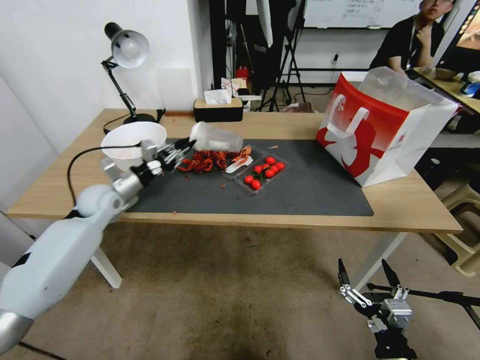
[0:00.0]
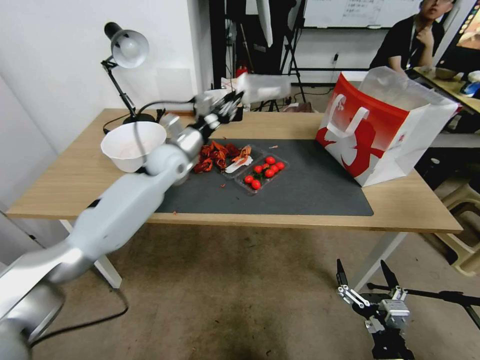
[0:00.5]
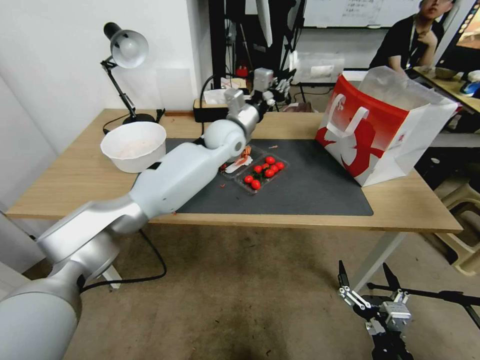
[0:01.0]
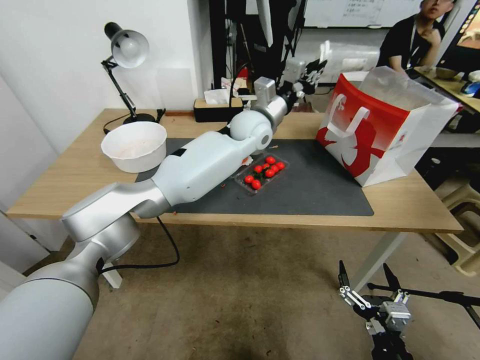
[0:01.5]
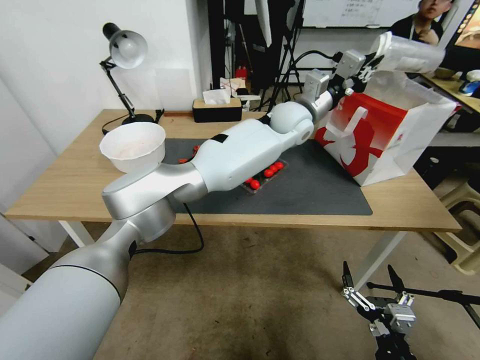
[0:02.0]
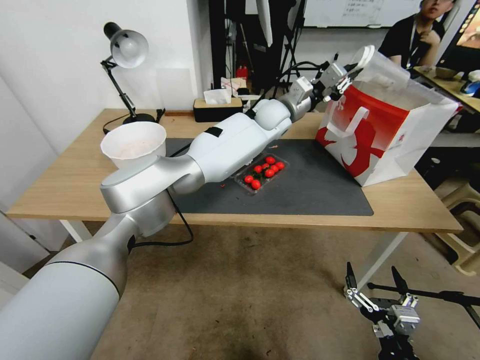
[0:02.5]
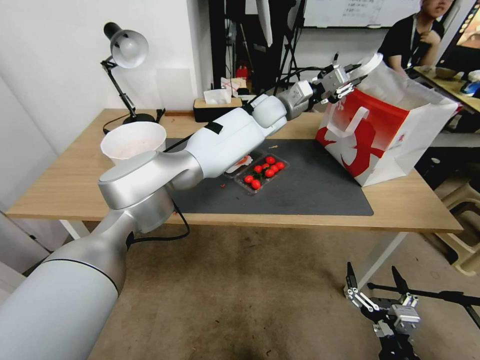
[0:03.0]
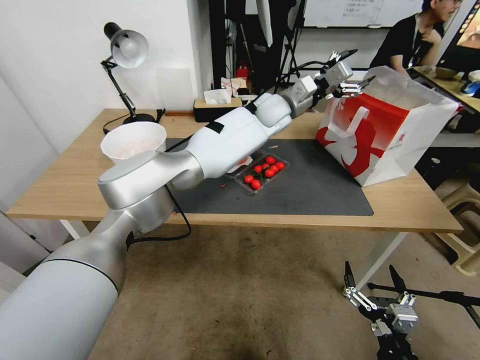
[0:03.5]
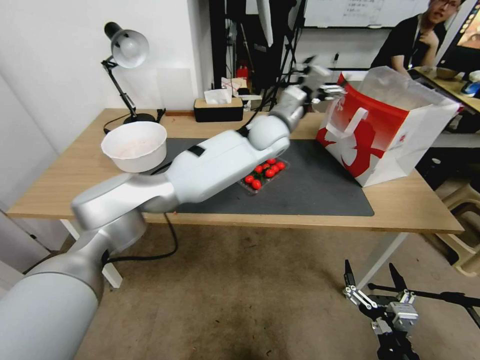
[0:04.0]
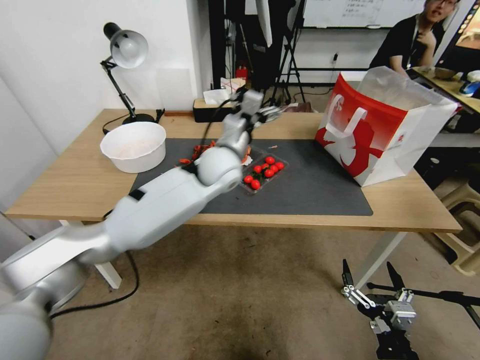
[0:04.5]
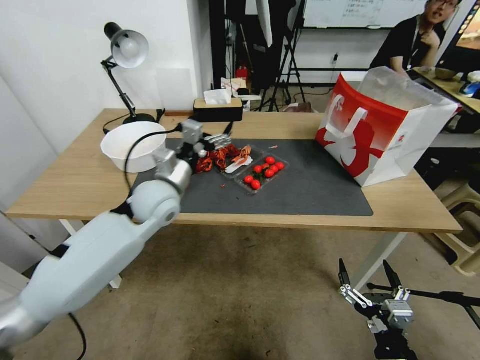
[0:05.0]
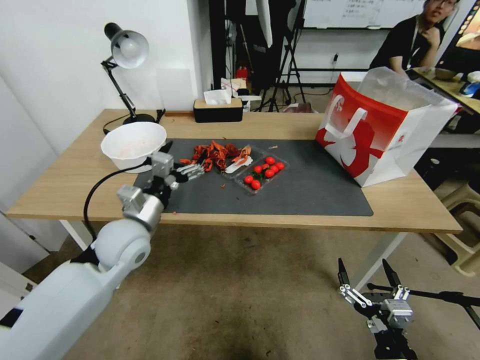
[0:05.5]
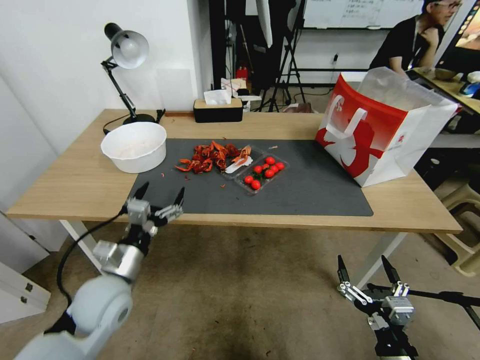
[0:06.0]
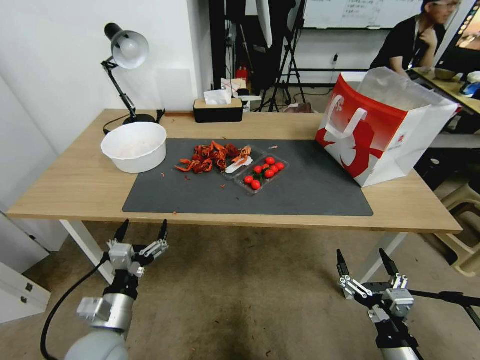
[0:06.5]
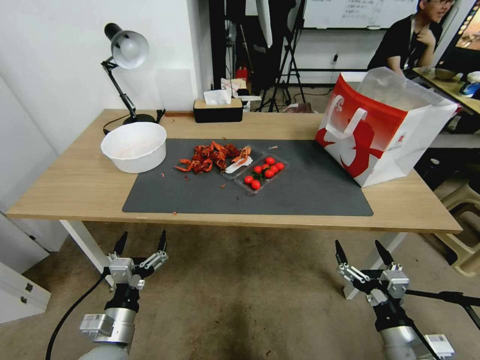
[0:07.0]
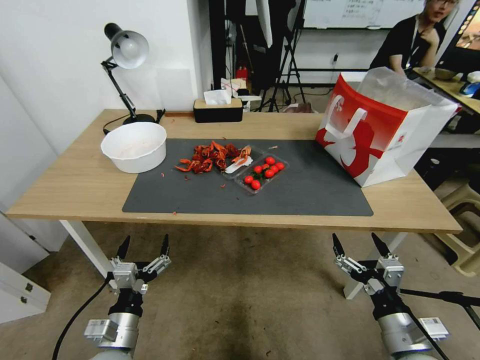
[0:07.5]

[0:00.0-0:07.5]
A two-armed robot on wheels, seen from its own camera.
0:00.0 to 0:02.0: The left gripper goes approximately 50 cm to the right and upward.
0:02.0 to 0:04.0: The left gripper heads to the right, covering roughly 5 cm, and opens.
0:04.0 to 0:05.5: The left gripper moves to the left and backward, roughly 40 cm.
0:05.5 to 0:07.5: The left gripper heads backward and downward, covering roughly 25 cm. Meanwhile the right gripper is displaced forward by roughly 5 cm.

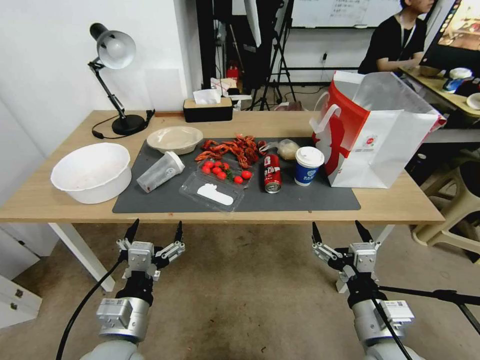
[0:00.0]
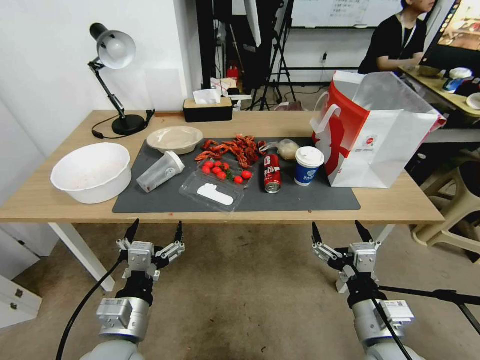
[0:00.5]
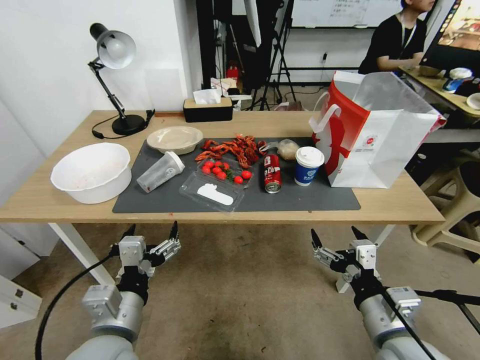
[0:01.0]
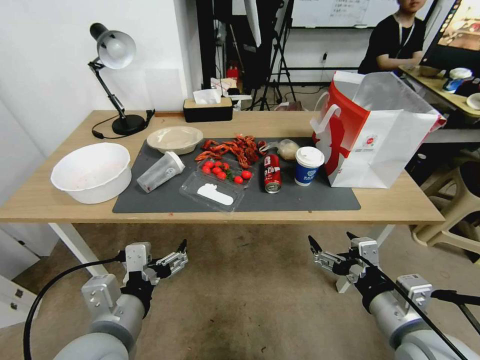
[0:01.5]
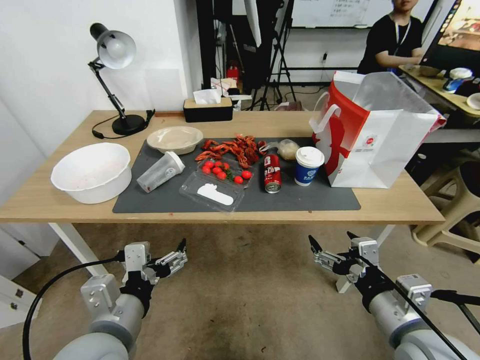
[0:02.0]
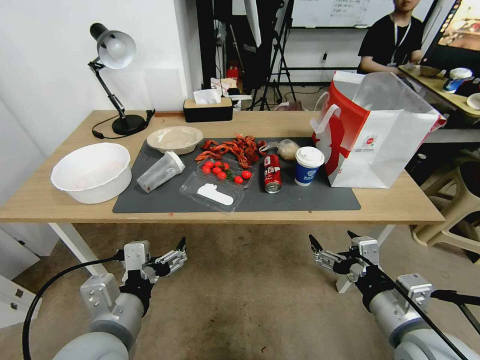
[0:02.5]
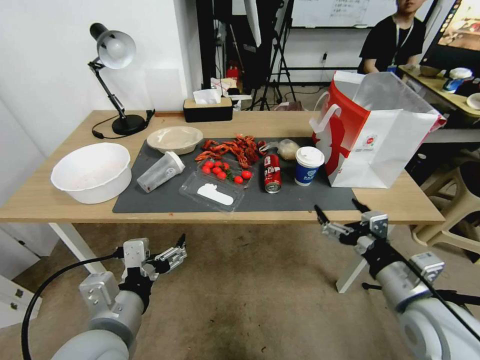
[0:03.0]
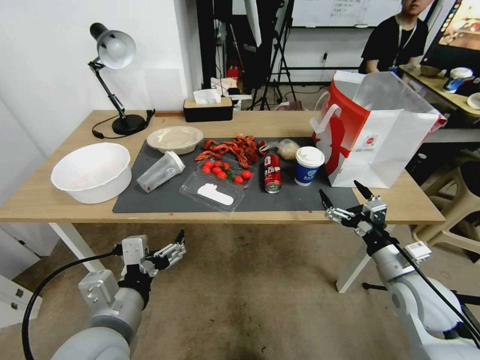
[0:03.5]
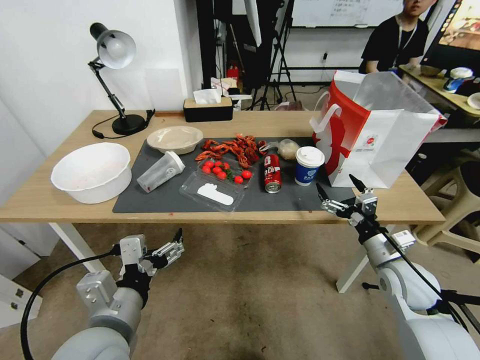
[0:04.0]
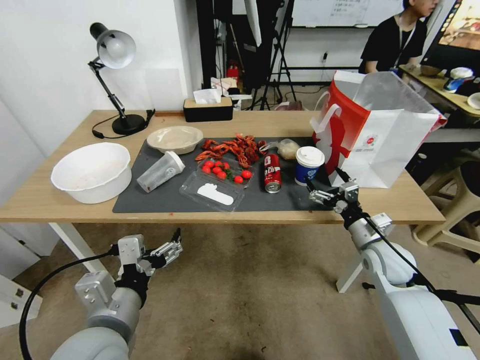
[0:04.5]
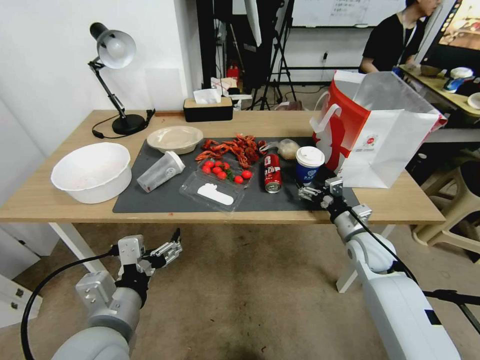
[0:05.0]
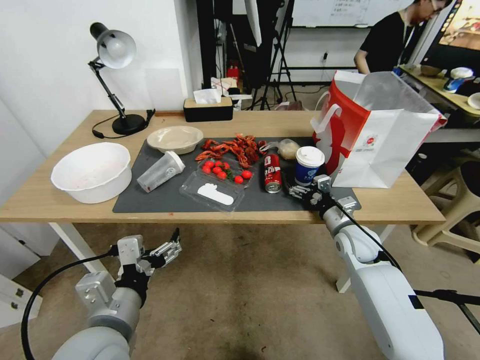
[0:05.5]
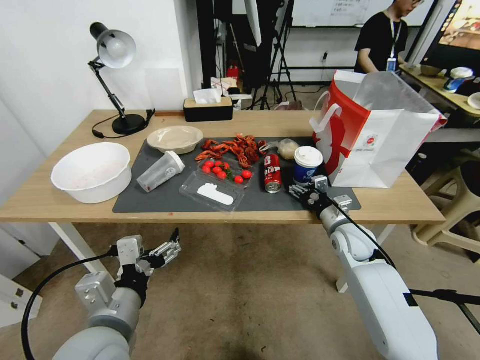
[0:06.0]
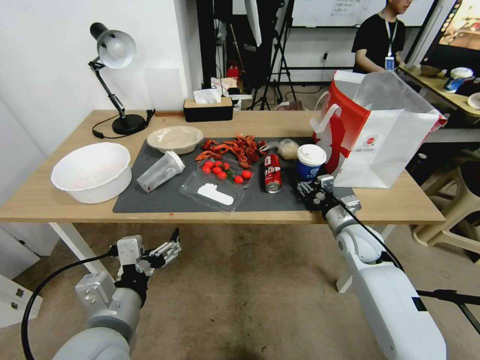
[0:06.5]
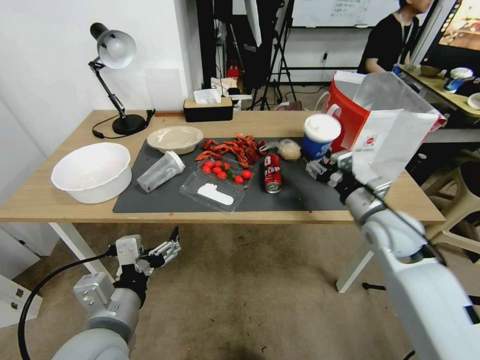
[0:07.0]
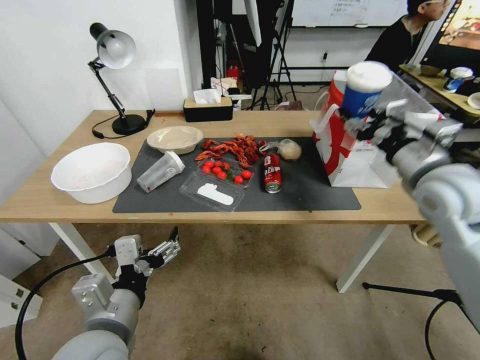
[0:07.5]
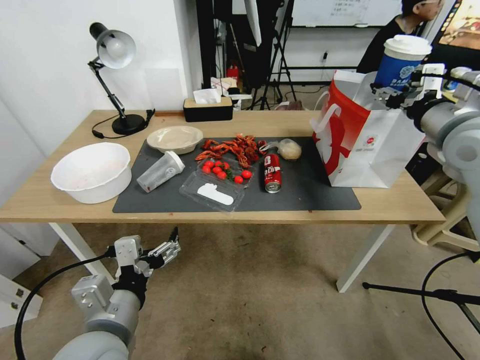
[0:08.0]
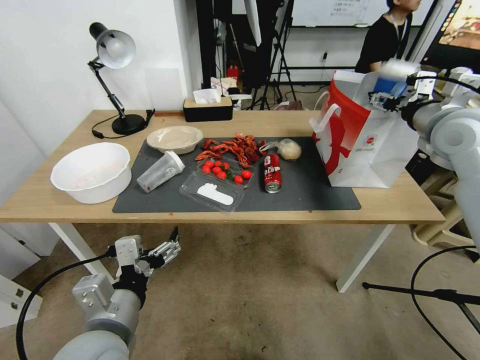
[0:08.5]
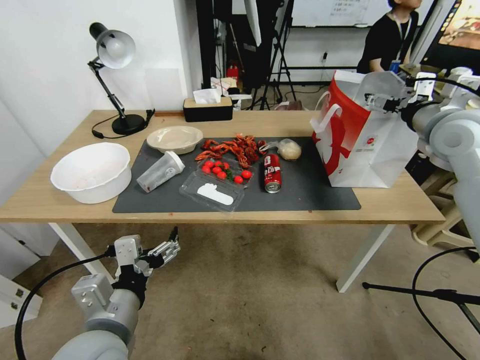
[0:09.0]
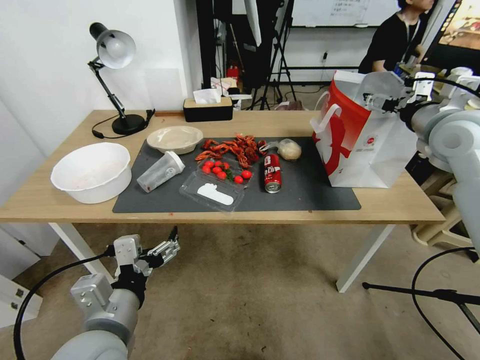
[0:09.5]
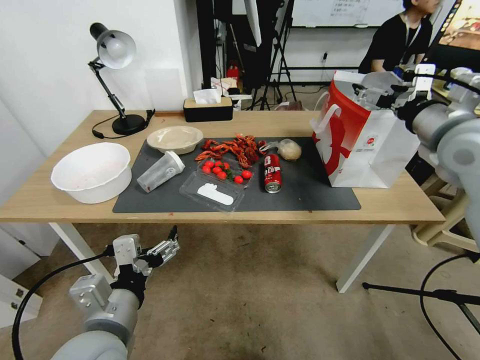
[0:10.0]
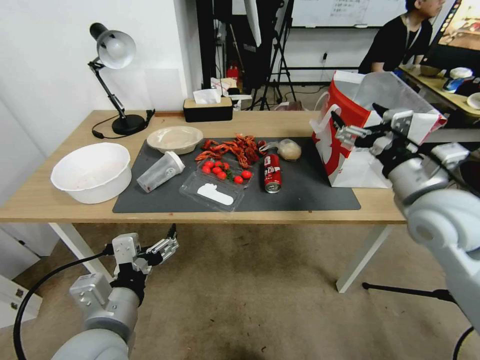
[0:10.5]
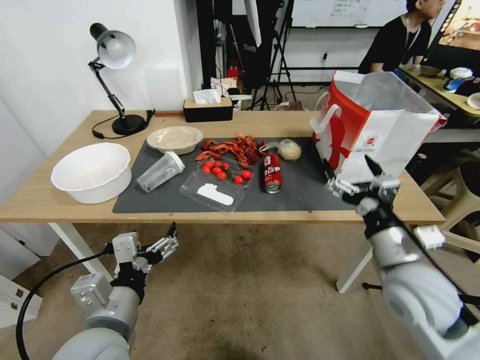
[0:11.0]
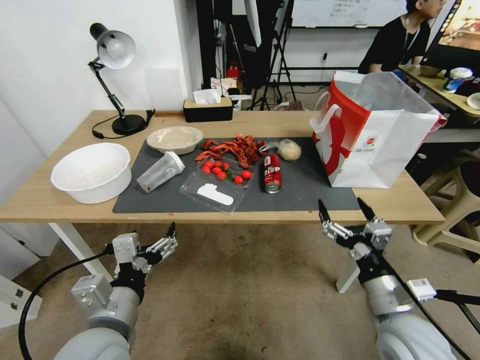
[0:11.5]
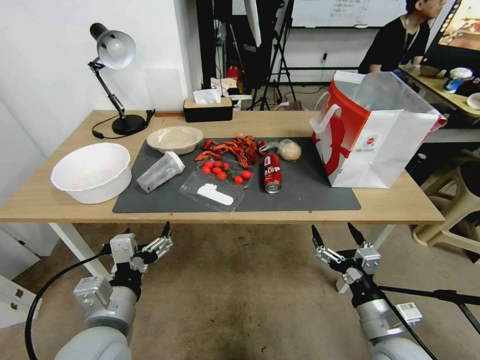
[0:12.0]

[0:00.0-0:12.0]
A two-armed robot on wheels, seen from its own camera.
0:02.0 to 0:04.0: The right gripper is displaced forward, downward and to the right by about 20 cm.
0:04.0 to 0:06.0: The right gripper travels forward and to the left by approximately 15 cm.
0:06.0 to 0:08.0: The right gripper travels upward by some 30 cm, and closes its fingers.
0:08.0 to 0:10.0: The right gripper opens its fingers.
0:10.0 to 0:12.0: The right gripper moves downward and backward, approximately 40 cm.

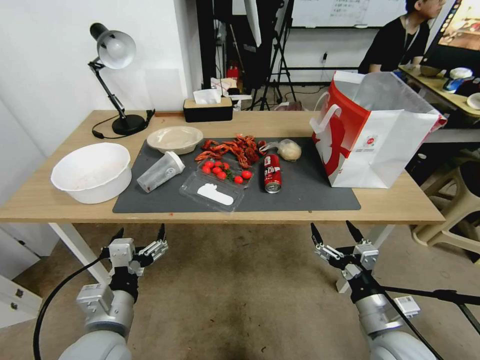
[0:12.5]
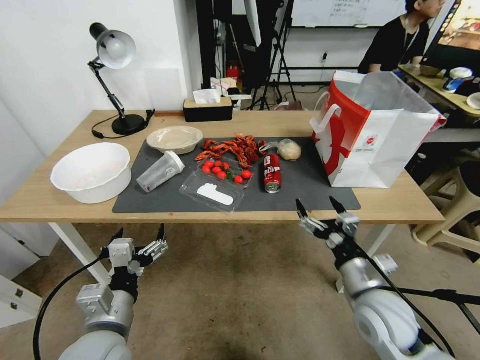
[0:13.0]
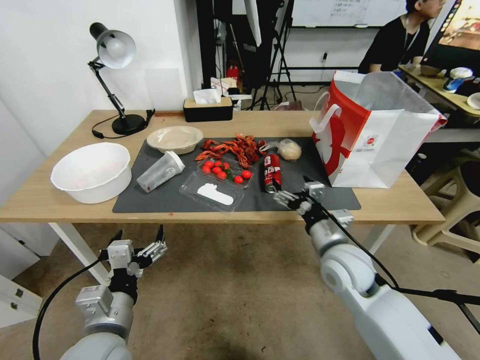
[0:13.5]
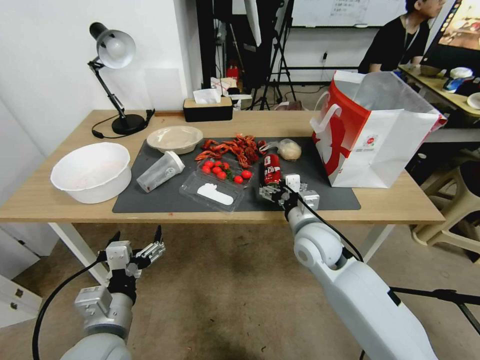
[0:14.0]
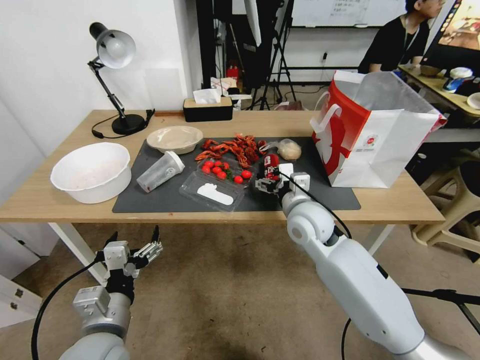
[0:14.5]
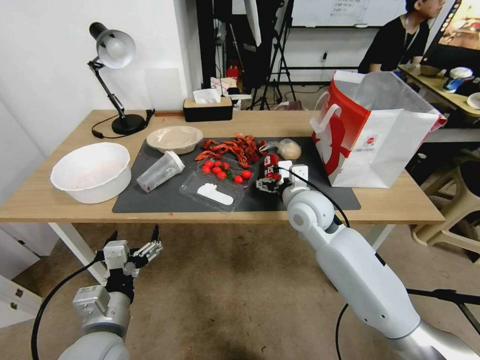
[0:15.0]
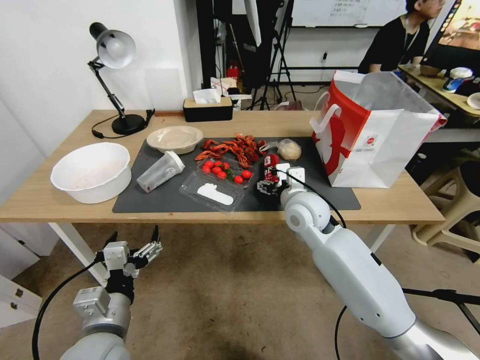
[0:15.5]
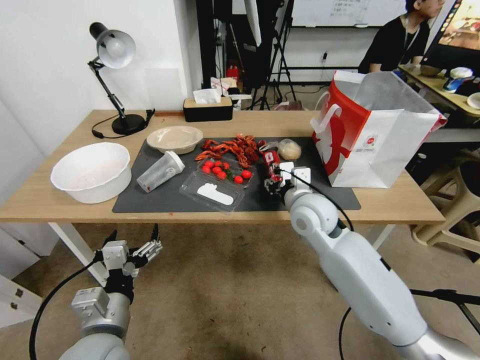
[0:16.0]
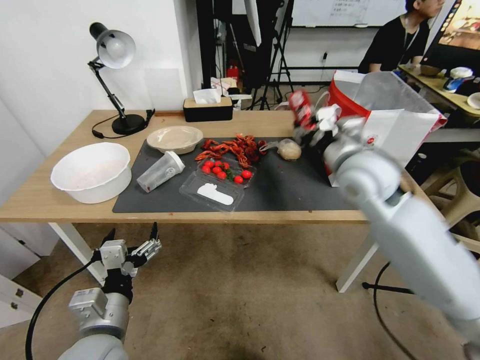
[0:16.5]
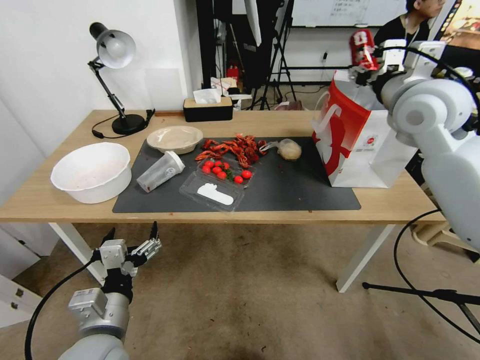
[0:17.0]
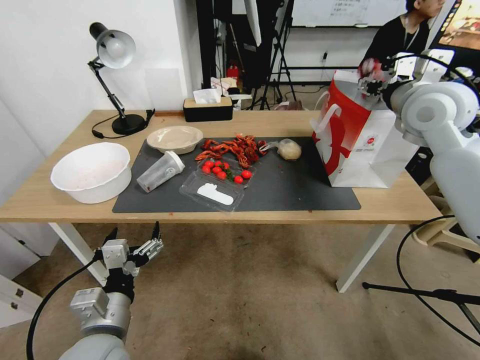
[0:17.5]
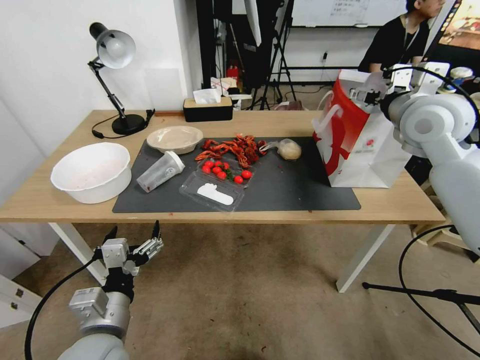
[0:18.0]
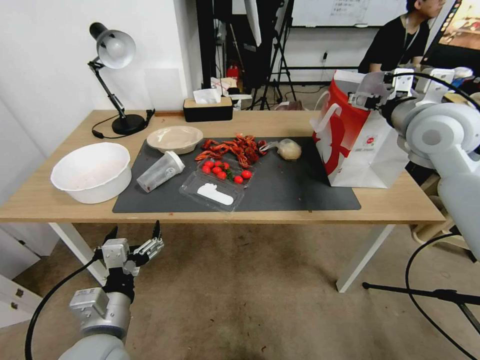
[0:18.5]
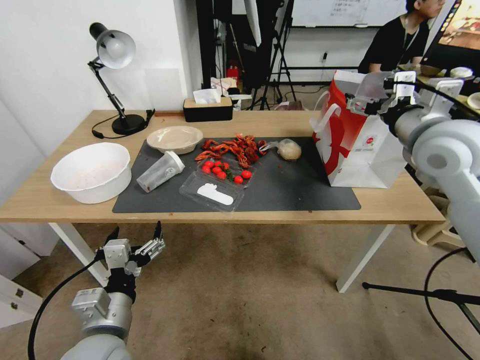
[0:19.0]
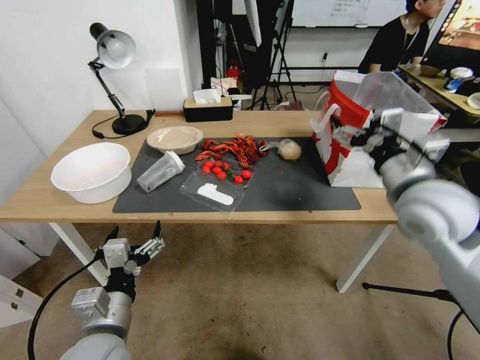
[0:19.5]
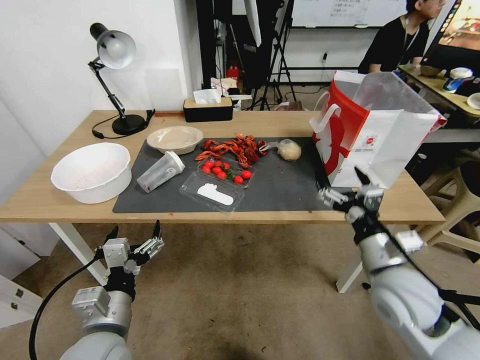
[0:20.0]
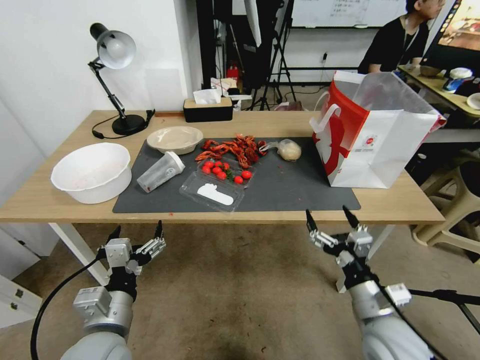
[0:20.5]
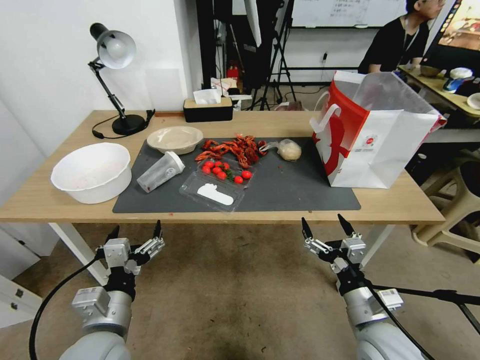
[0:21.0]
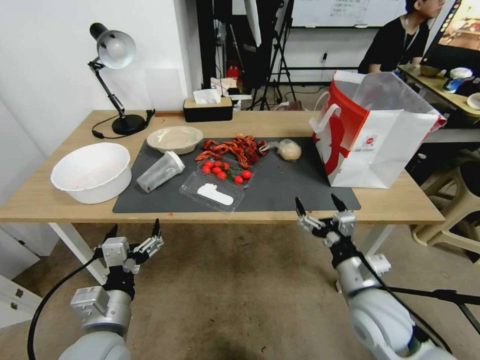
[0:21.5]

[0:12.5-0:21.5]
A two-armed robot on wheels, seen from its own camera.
0:12.5 to 0:14.5: The right gripper heads forward, to the left and upward, covering some 30 cm.
0:14.5 to 0:17.0: The right gripper goes about 30 cm upward and to the right, and closes up.
0:17.0 to 0:19.5: The right gripper goes approximately 15 cm backward and downward, and opens up.
0:19.5 to 0:21.5: The right gripper travels downward and backward by approximately 20 cm.
